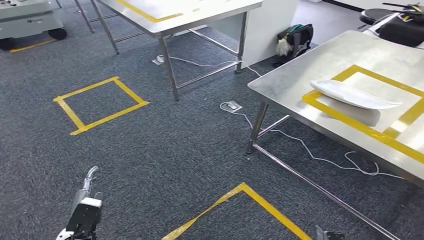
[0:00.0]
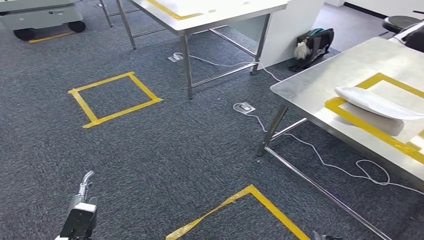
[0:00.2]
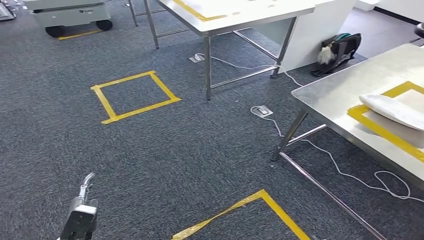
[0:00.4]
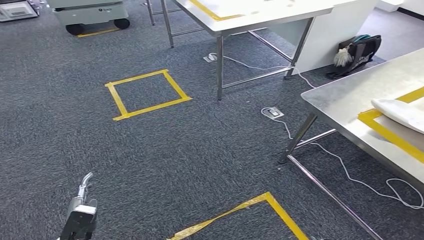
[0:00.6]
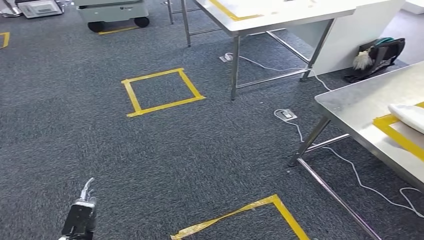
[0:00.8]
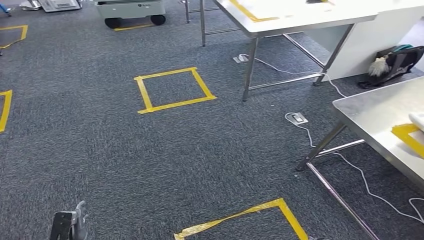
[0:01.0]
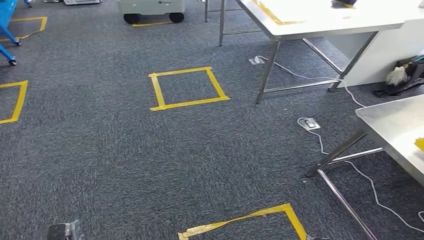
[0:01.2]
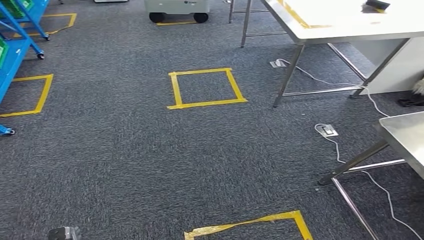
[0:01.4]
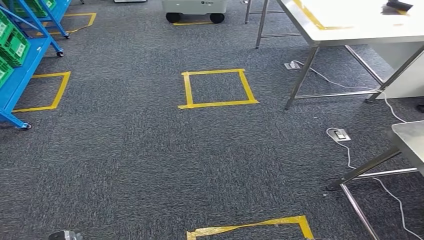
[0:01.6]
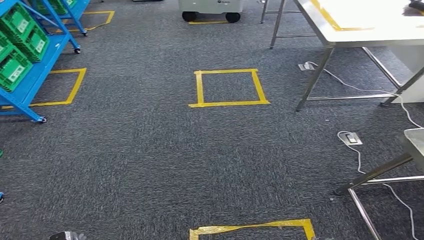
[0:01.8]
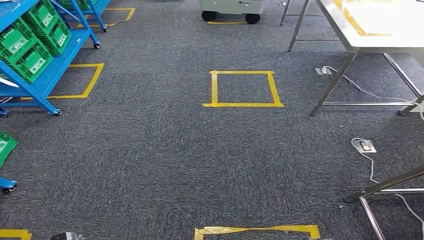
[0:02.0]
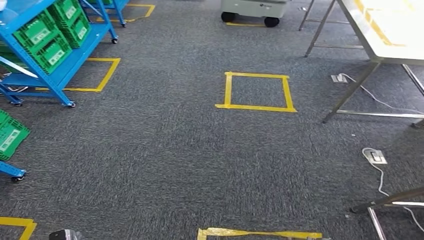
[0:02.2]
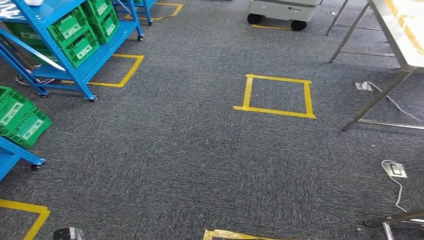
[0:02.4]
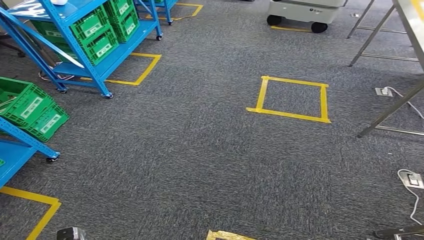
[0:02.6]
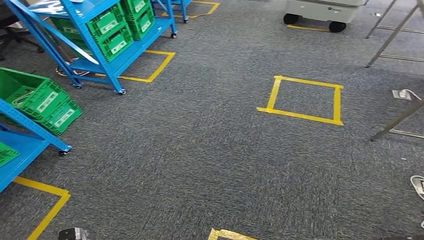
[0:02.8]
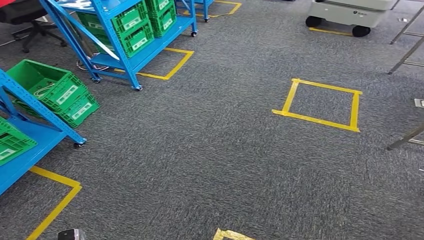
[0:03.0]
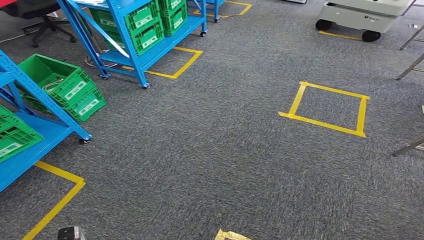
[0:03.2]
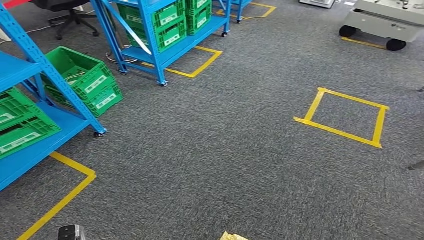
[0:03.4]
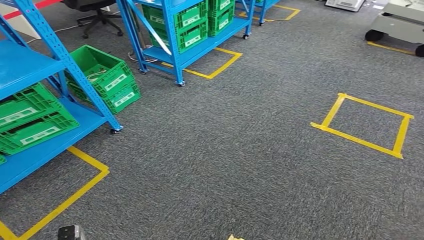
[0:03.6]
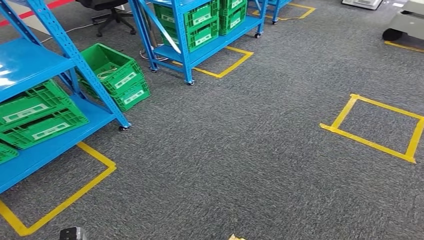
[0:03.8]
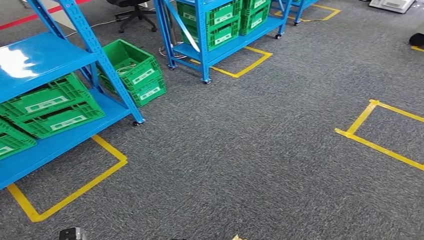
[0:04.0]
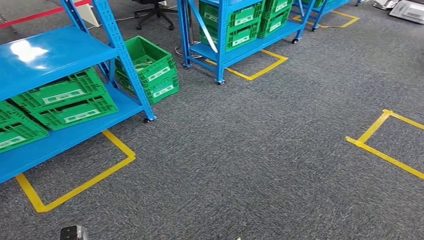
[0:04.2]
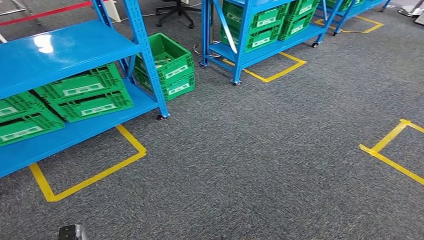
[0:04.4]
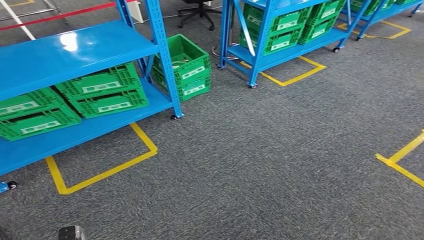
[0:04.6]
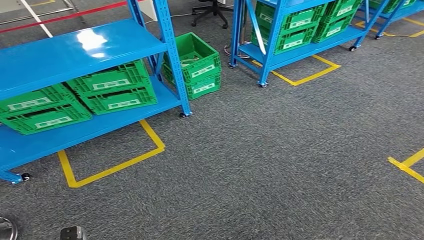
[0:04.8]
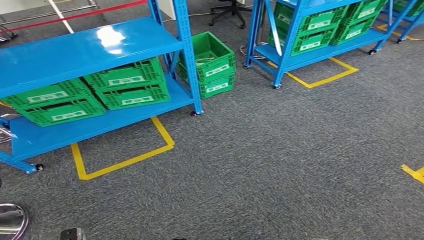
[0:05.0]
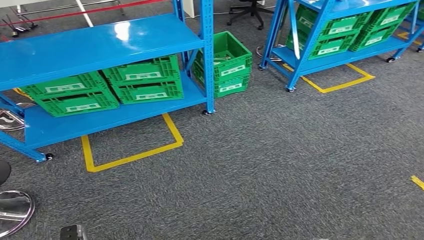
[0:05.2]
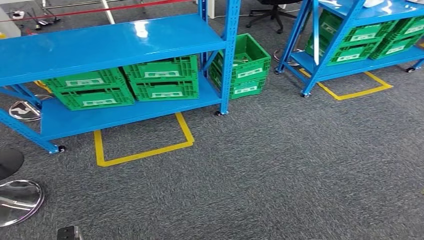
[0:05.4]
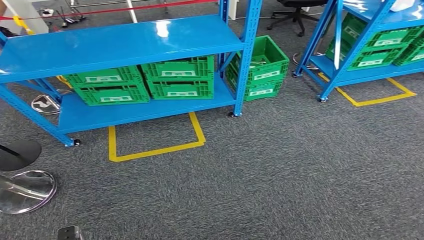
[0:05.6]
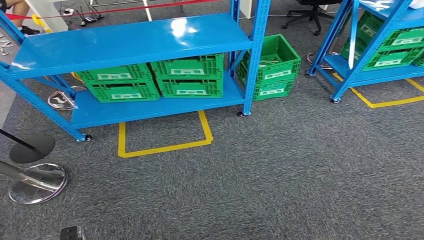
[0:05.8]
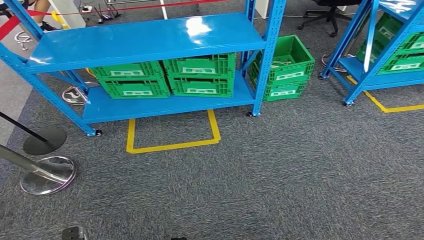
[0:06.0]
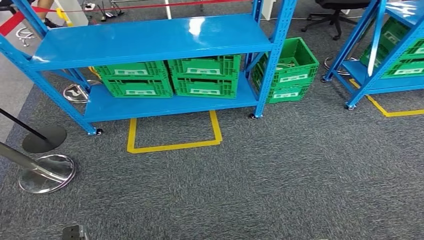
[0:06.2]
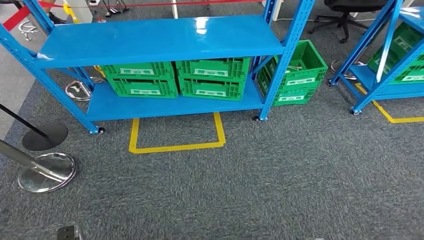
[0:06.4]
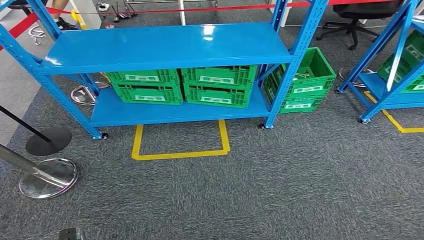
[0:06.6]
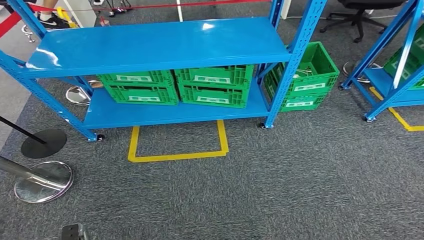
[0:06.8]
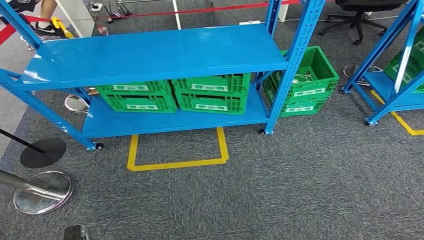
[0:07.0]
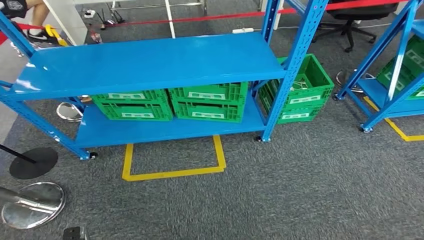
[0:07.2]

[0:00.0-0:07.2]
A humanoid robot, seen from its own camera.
Step, 0:00.0 to 0:07.2: Move to the initial position at the workbench.

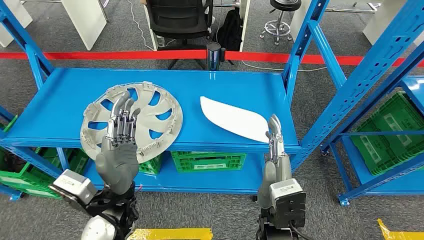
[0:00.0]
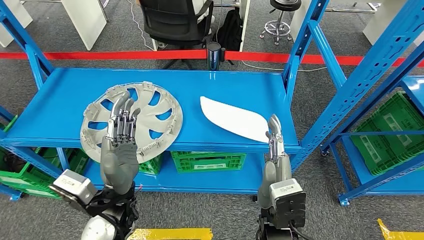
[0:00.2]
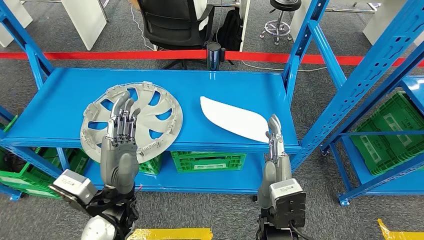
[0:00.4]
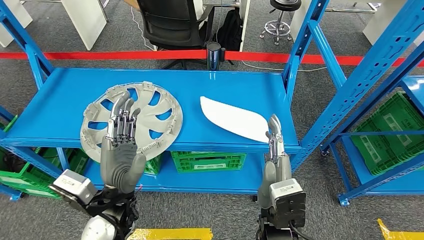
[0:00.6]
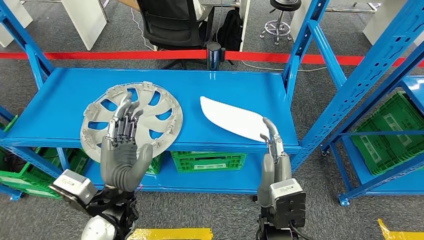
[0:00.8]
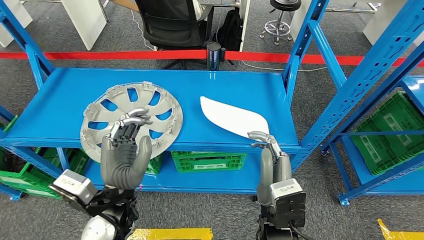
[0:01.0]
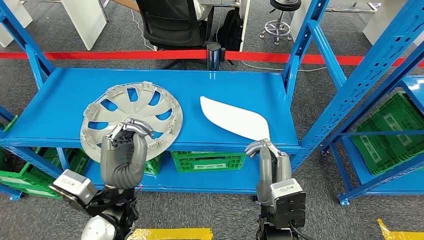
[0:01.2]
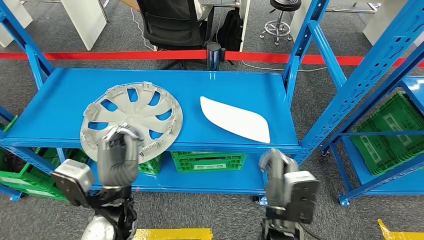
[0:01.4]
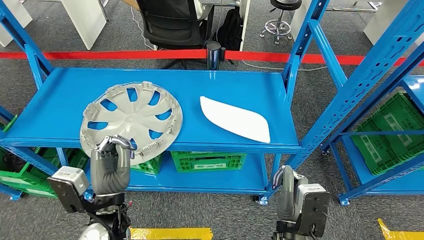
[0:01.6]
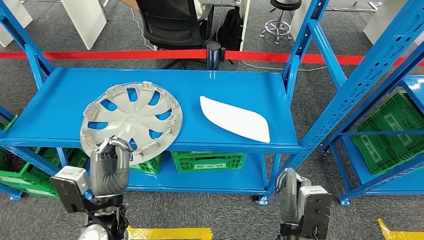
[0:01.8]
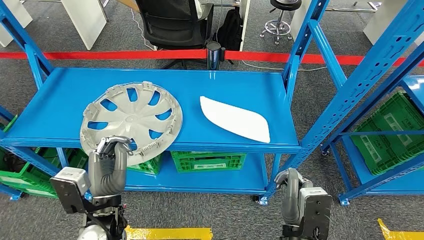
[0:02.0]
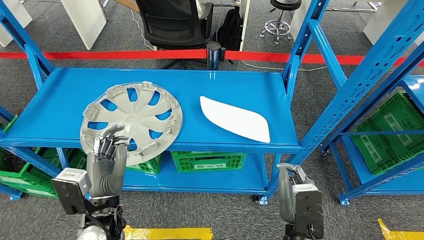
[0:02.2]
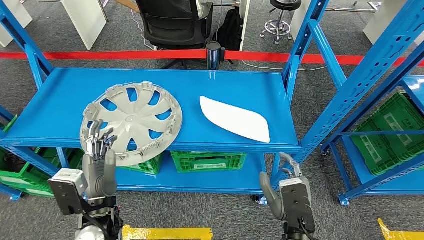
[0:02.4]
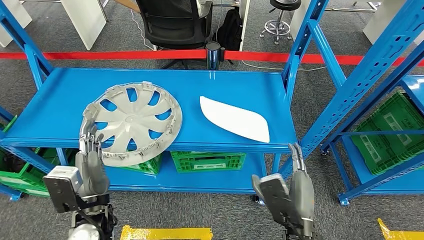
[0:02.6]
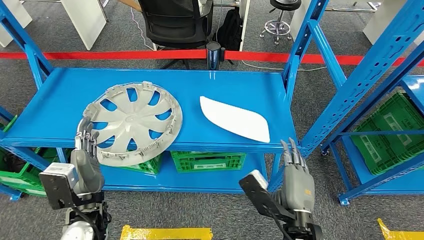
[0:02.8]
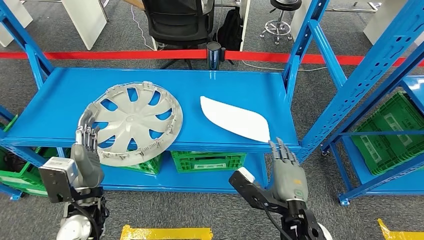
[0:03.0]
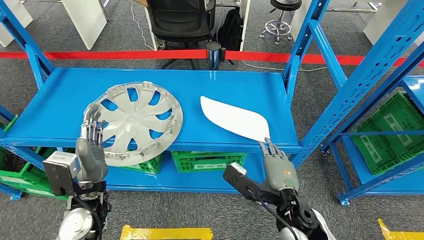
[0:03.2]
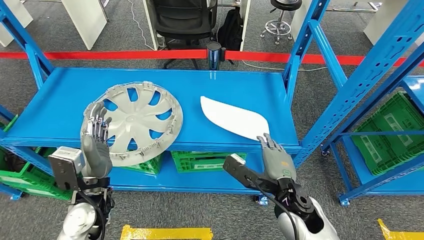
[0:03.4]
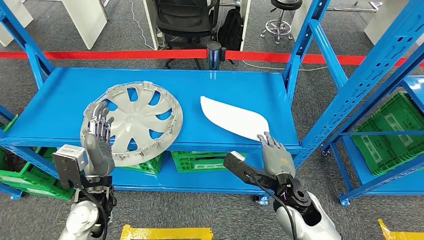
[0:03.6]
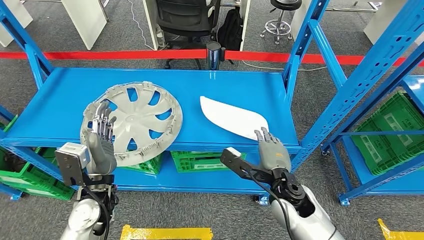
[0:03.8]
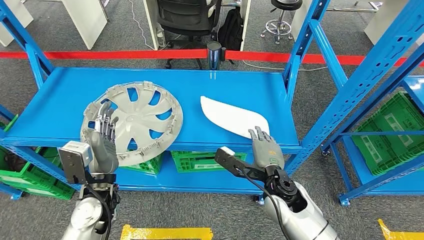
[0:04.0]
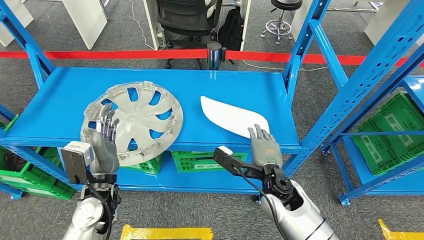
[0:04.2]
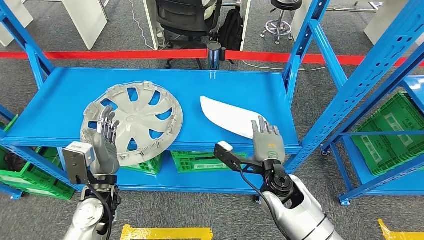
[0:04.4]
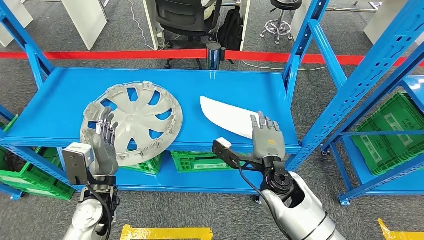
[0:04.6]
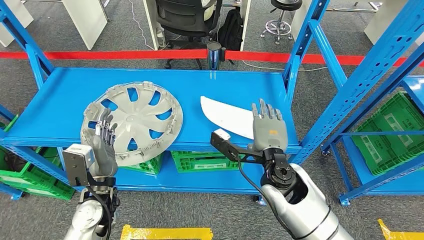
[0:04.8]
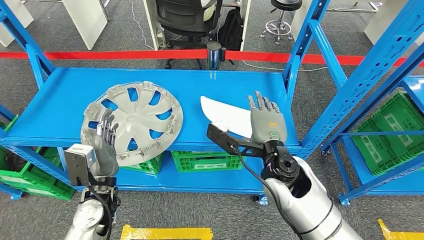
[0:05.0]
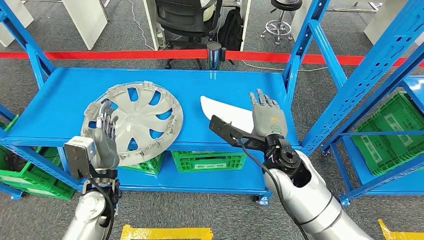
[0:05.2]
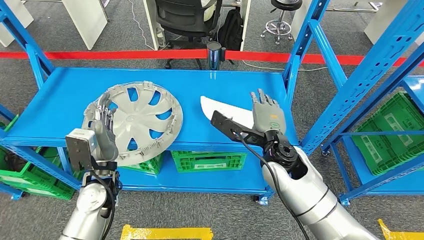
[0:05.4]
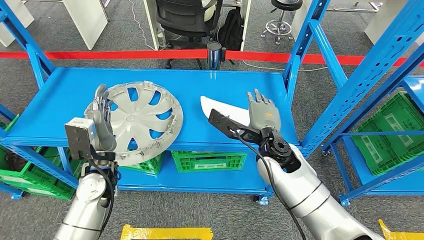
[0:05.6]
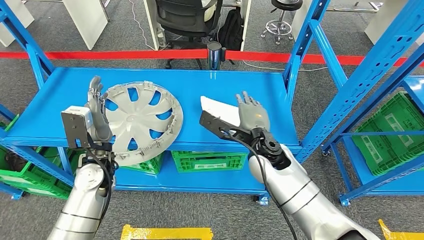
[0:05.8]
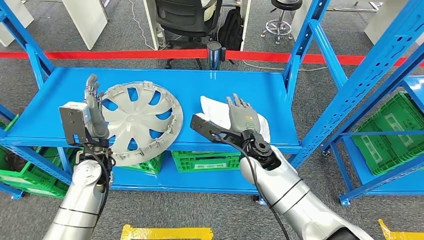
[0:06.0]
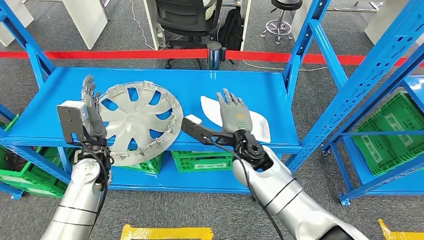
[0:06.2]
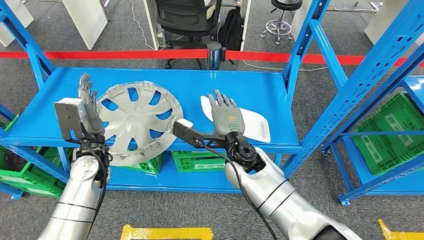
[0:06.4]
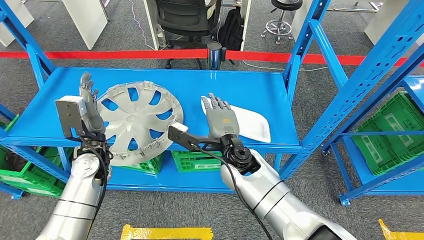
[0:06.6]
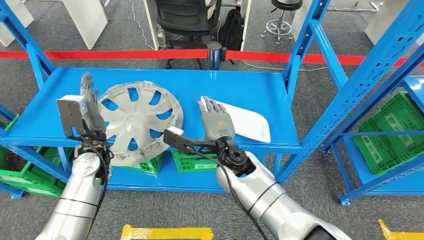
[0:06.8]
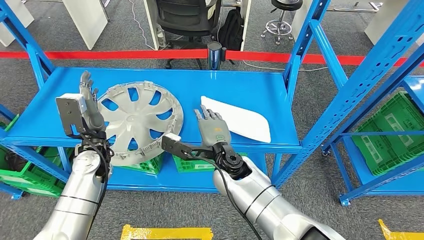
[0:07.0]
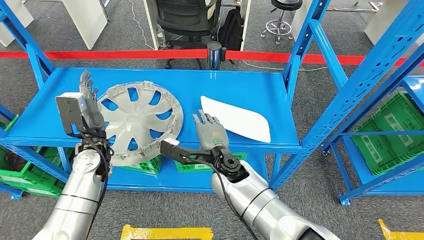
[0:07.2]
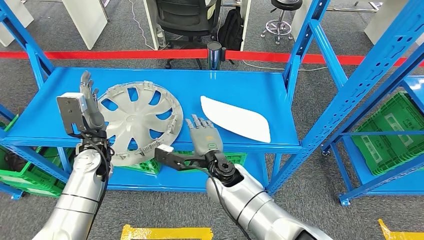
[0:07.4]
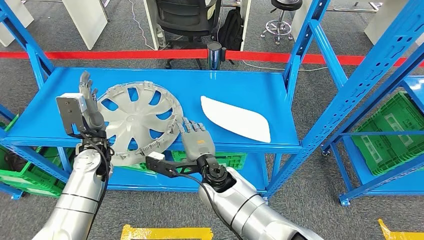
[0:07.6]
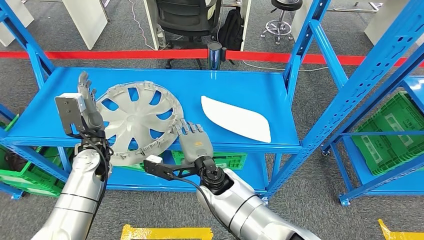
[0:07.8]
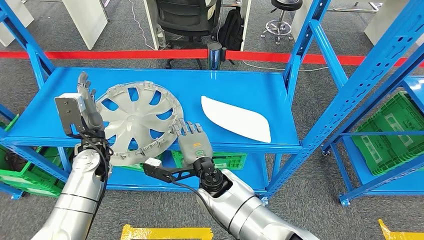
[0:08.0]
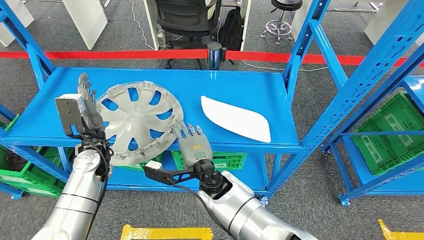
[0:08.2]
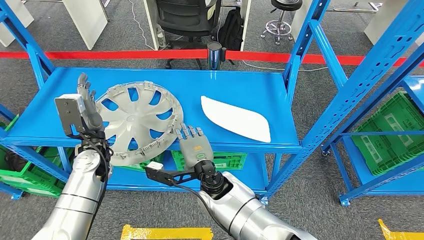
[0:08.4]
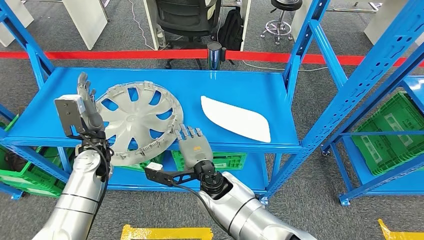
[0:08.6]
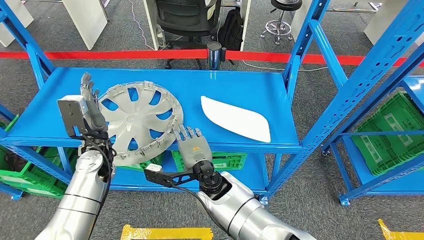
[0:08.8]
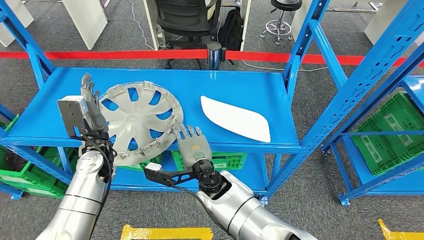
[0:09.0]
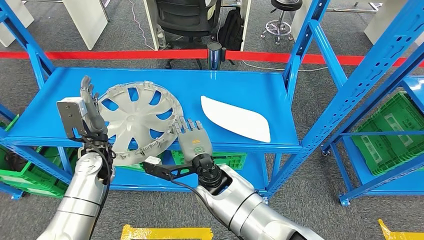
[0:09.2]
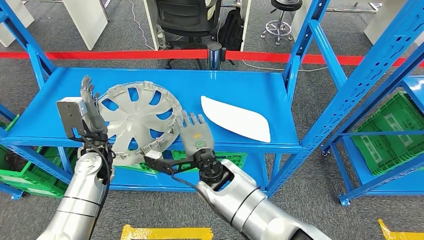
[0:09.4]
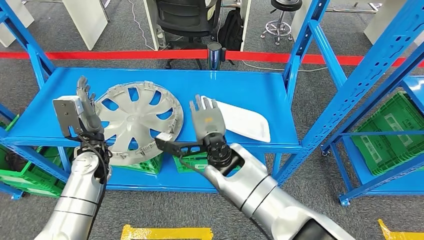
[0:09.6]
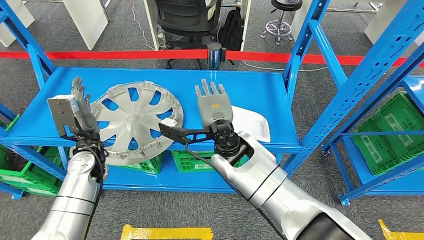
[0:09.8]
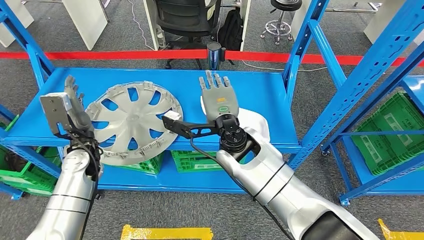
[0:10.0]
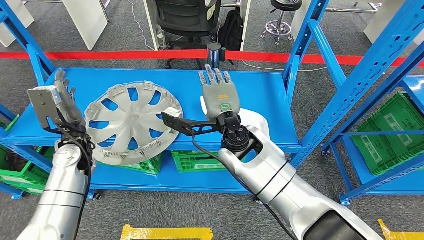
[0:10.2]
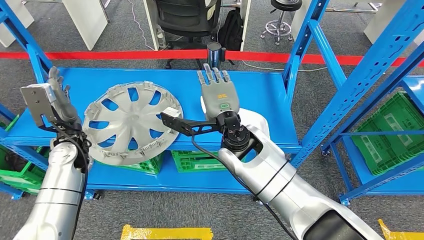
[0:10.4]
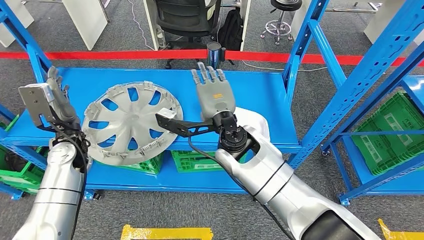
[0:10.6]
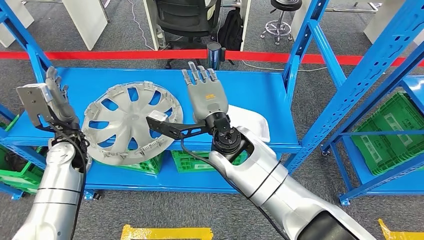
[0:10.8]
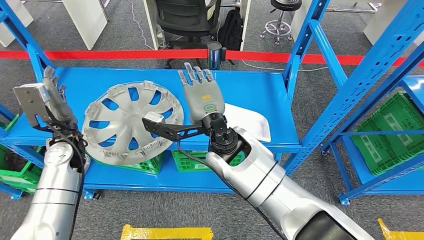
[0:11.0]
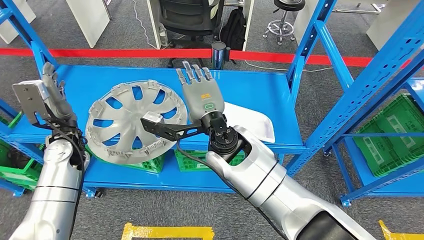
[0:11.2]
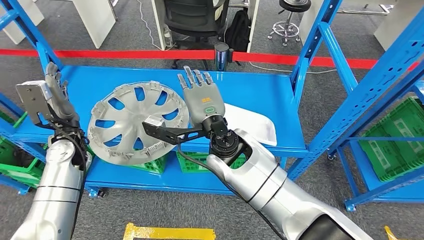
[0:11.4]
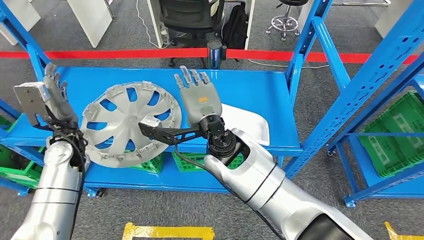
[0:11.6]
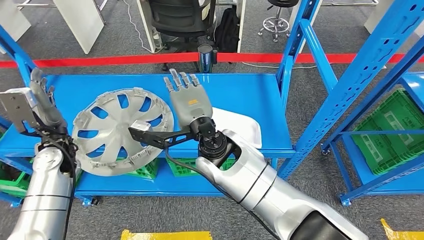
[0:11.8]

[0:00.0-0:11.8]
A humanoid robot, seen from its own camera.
0:01.4 to 0:03.0: The left hand is displaced to the left by some 5 cm.
0:03.0 to 0:04.4: The right hand goes roughly 10 cm forward.
0:04.4 to 0:06.0: The left hand travels forward by roughly 10 cm, while the right hand is displaced forward and to the left by some 5 cm.
0:06.0 to 0:07.4: The right hand shifts about 10 cm to the left and downward.
0:07.4 to 0:08.8: The hands move only a little.
